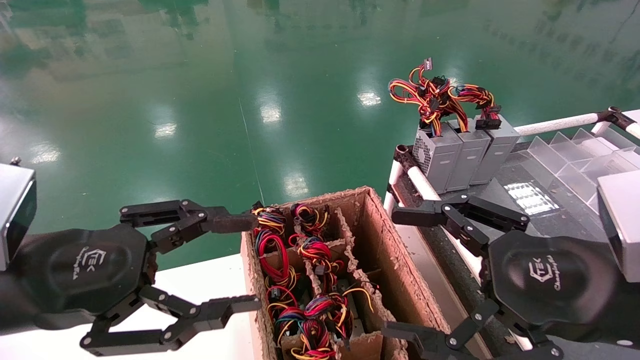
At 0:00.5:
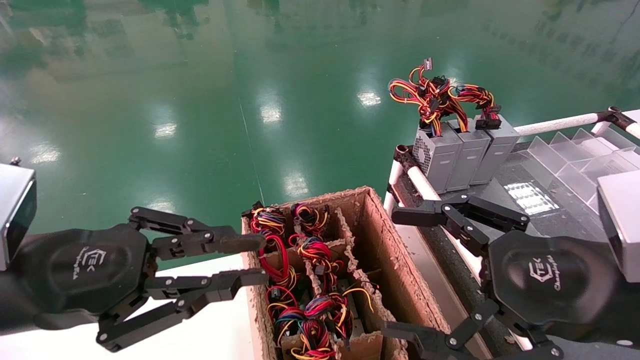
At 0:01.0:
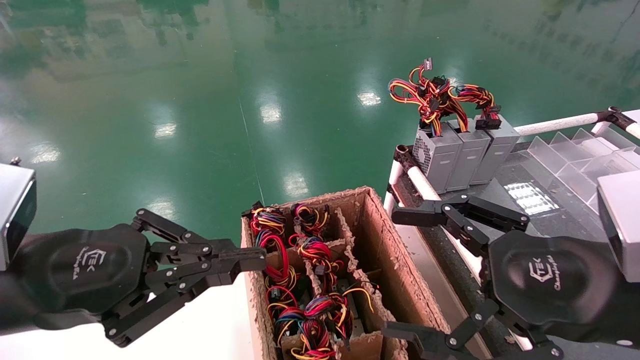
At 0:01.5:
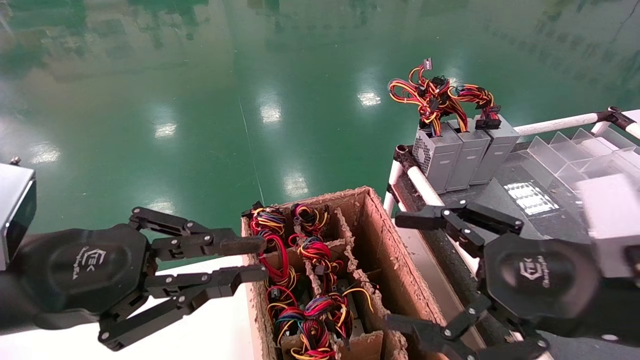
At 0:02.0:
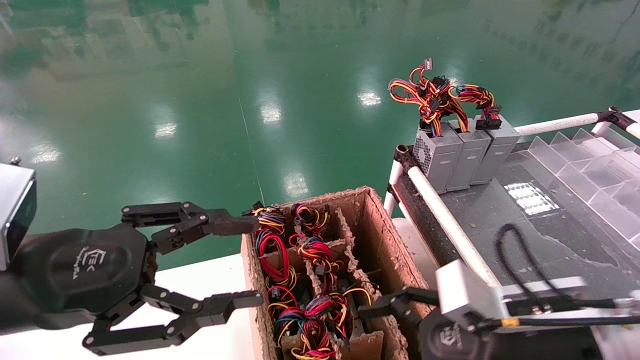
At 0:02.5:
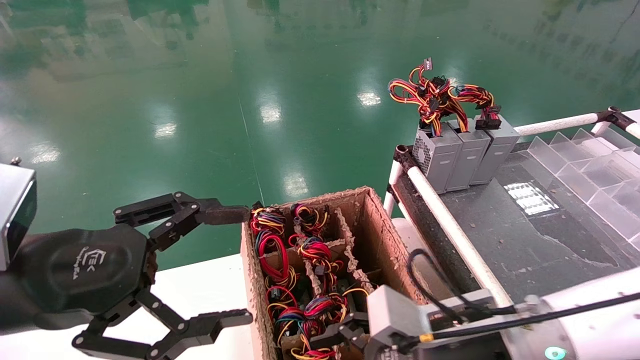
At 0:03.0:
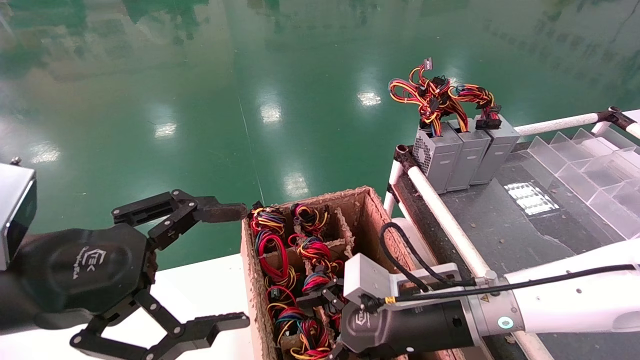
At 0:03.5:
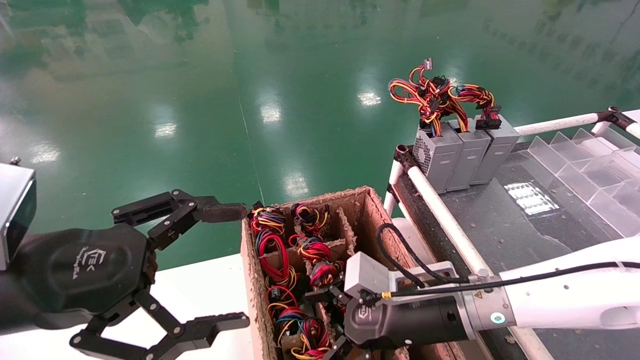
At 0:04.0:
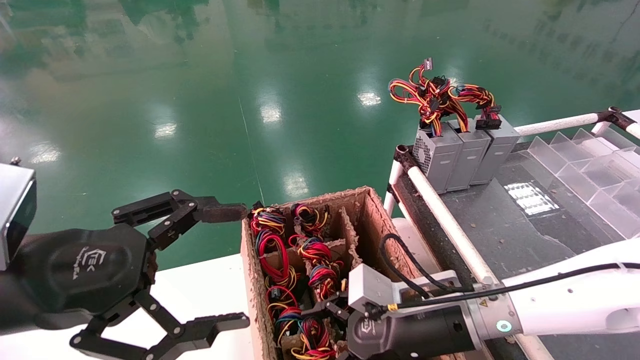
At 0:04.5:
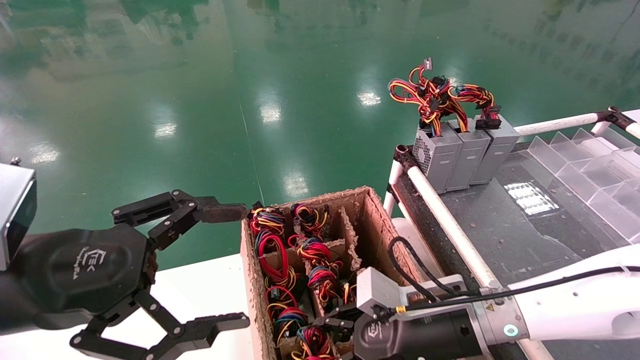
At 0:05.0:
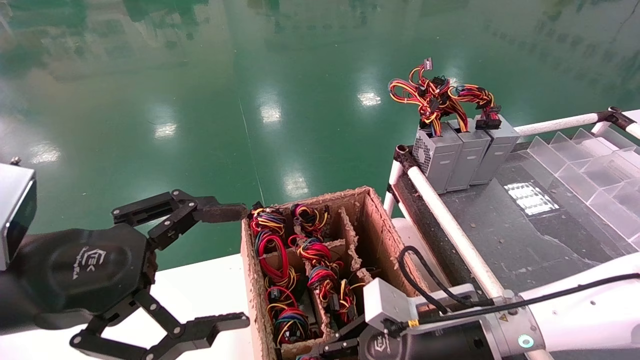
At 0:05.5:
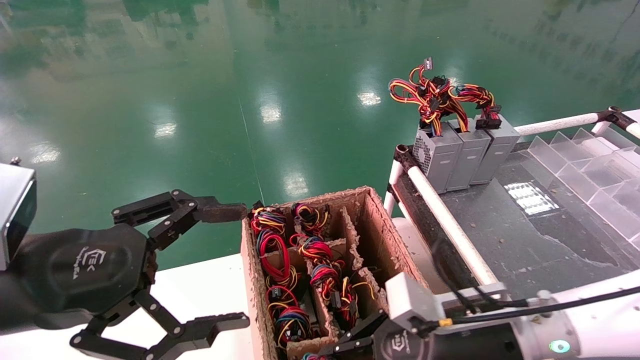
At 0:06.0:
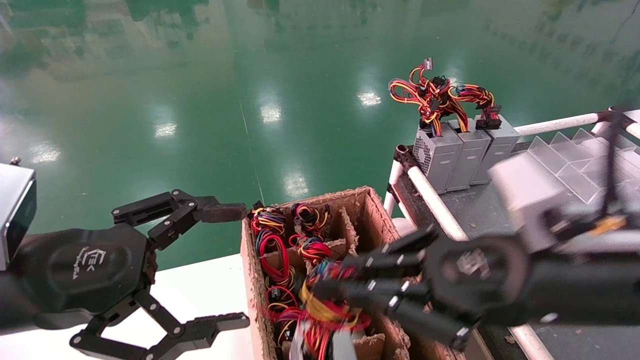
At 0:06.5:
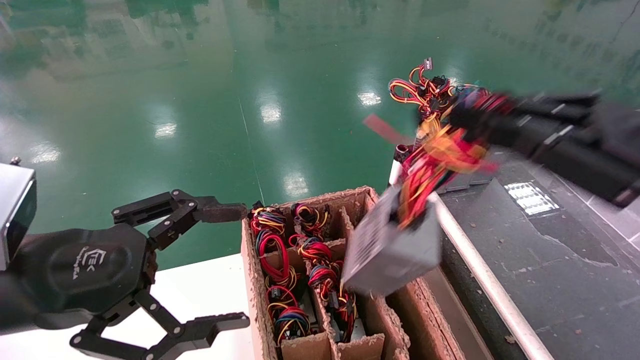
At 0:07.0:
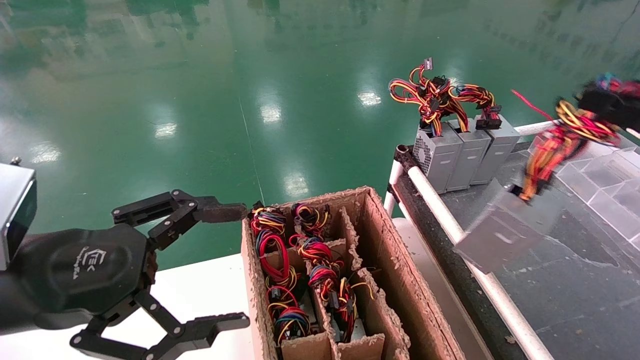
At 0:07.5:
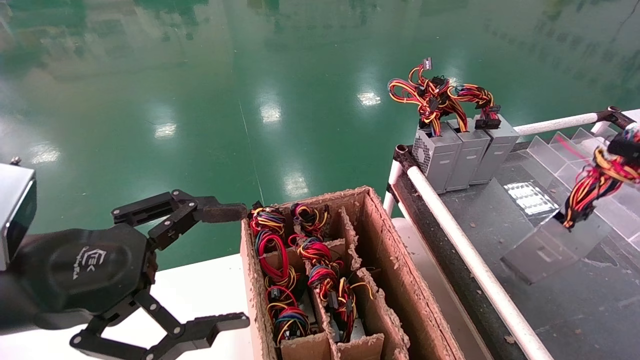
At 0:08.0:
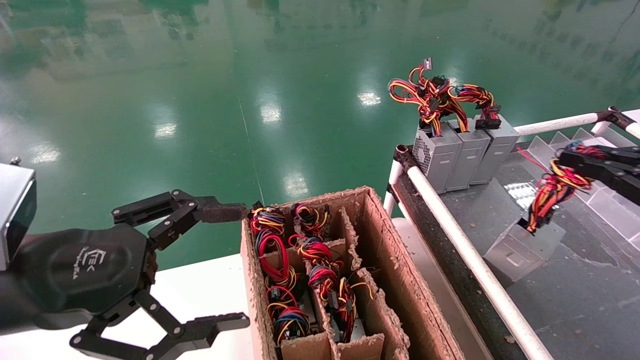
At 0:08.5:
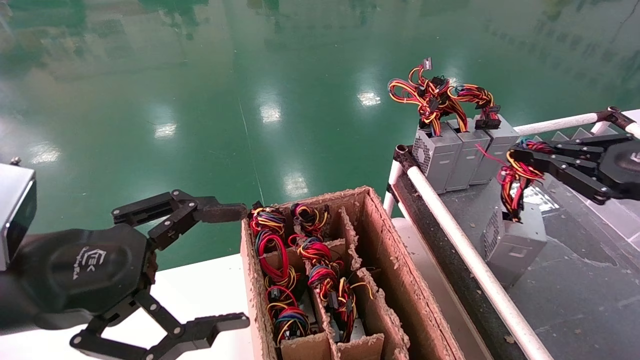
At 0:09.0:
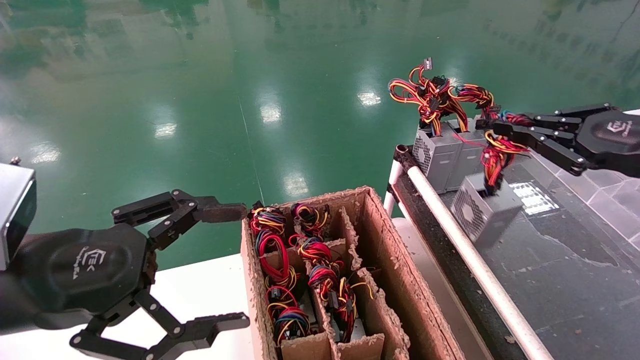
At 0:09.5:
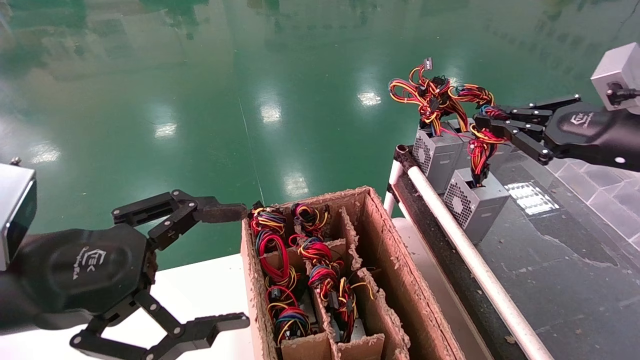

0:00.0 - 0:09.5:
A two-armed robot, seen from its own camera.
Step, 0:01.0 - 0:05.0: Grab and lift the power supply from the large box.
0:00.0 - 0:02.0: The left gripper closes, then opens again. The right gripper goes some 5 cm downward.
0:02.0 - 0:04.0: The right gripper shifts about 10 cm forward, to the left and downward; the left gripper opens its fingers.
0:04.0 - 0:05.5: The right gripper shifts by approximately 5 cm, and closes.
0:05.5 - 0:07.5: The right gripper goes roughly 30 cm to the right and upward.
0:07.5 - 0:09.5: The right gripper is displaced forward and to the left by approximately 15 cm.

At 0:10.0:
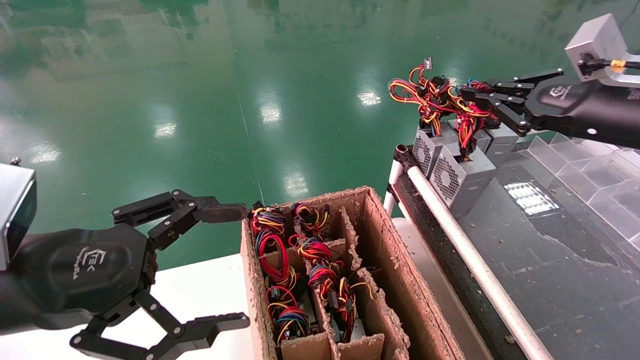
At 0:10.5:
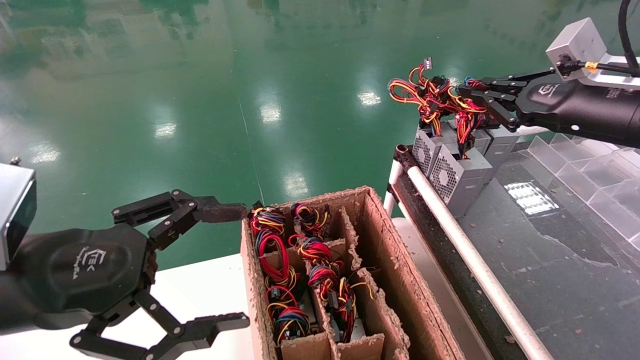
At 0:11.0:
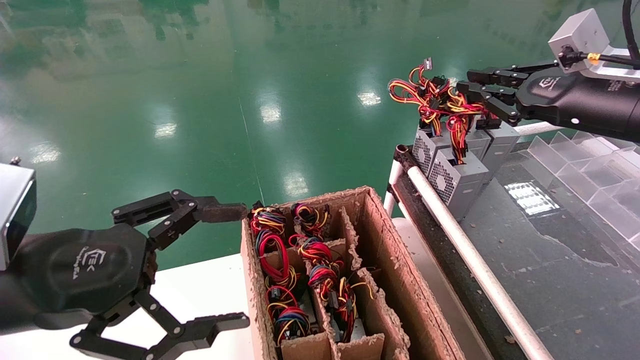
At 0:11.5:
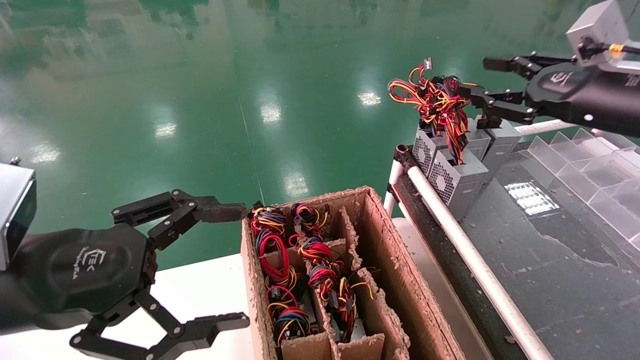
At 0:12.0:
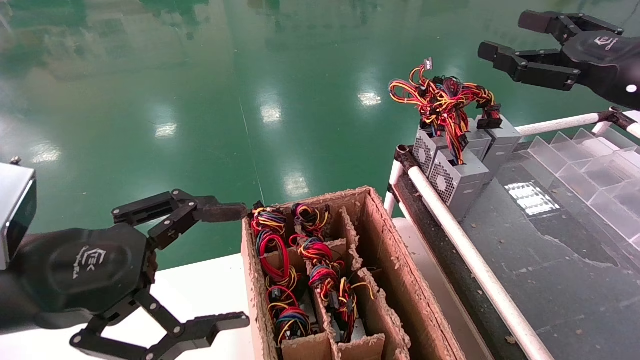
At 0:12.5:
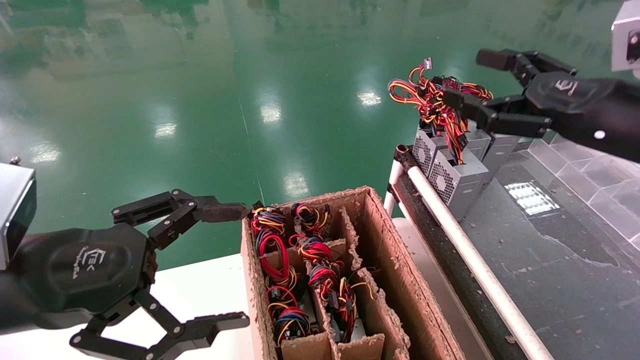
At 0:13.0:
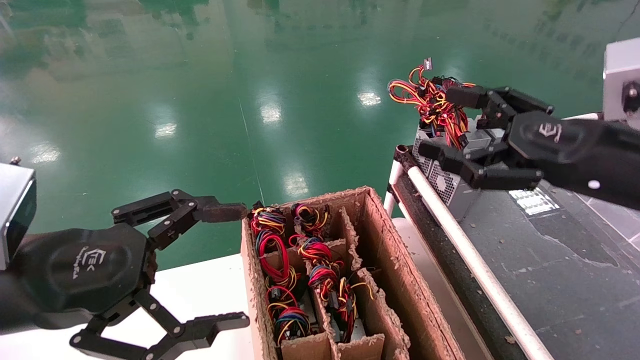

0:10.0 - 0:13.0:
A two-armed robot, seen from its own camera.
0:10.0 - 0:11.5: The right gripper opens.
0:11.5 - 0:13.0: The right gripper is displaced backward, to the left and downward by roughly 10 cm, and opens up.

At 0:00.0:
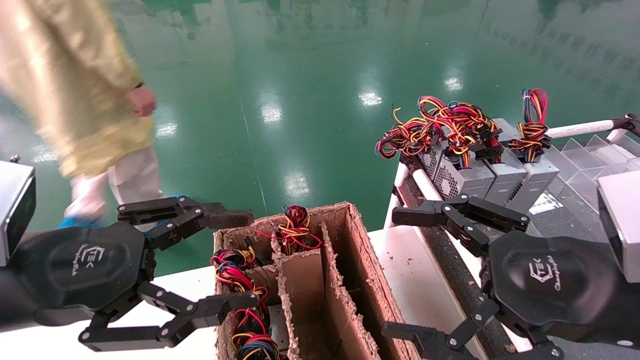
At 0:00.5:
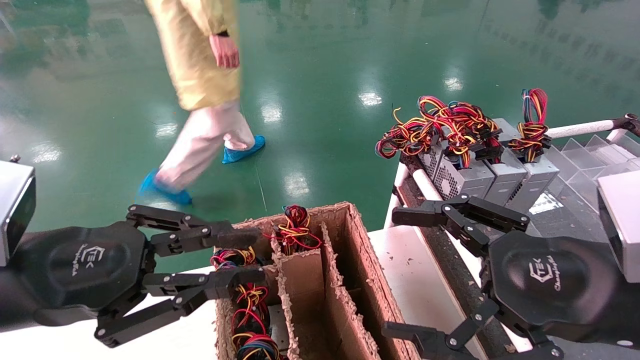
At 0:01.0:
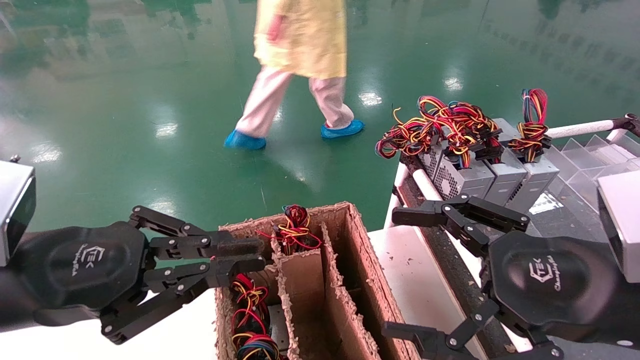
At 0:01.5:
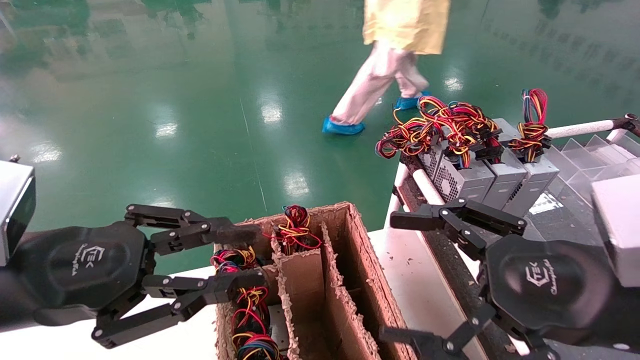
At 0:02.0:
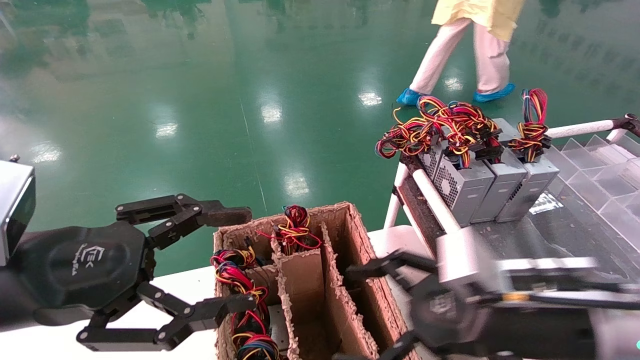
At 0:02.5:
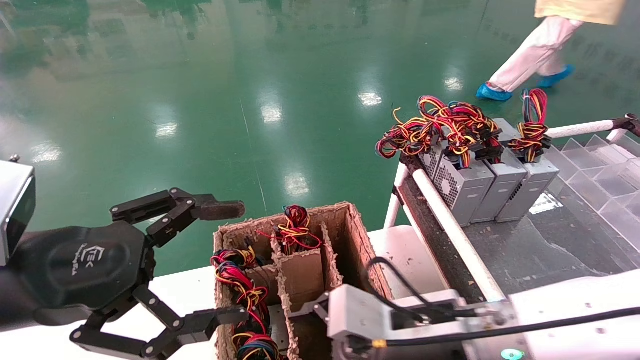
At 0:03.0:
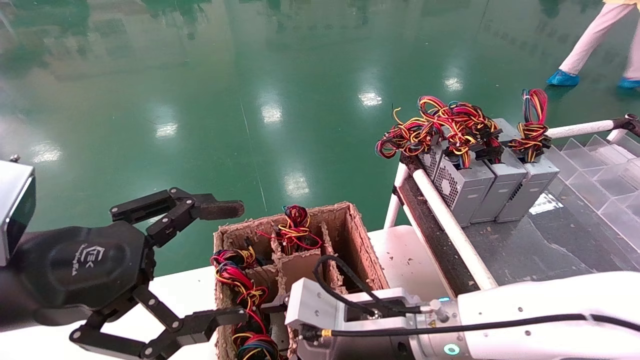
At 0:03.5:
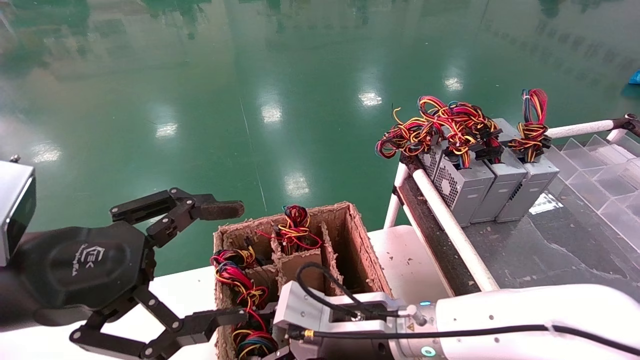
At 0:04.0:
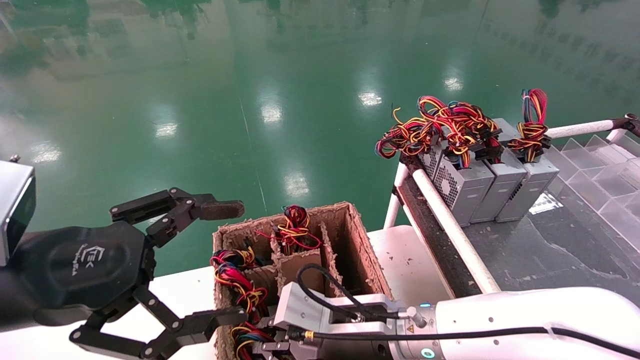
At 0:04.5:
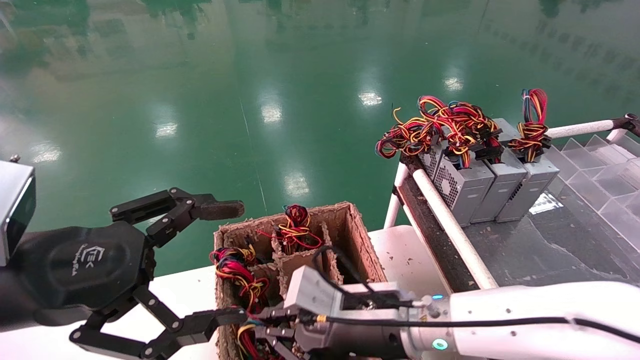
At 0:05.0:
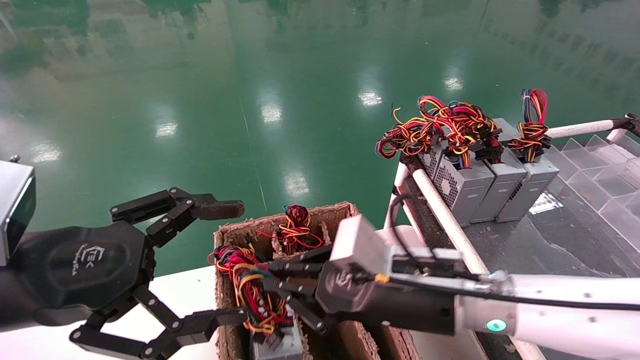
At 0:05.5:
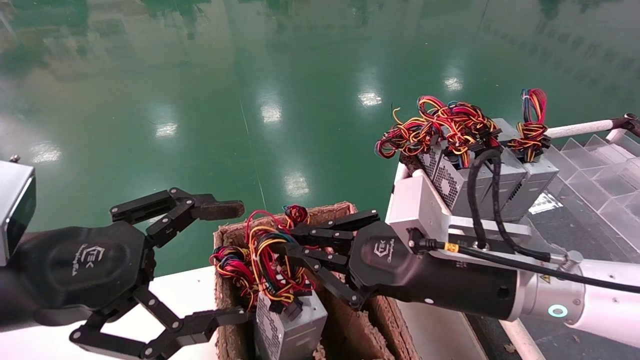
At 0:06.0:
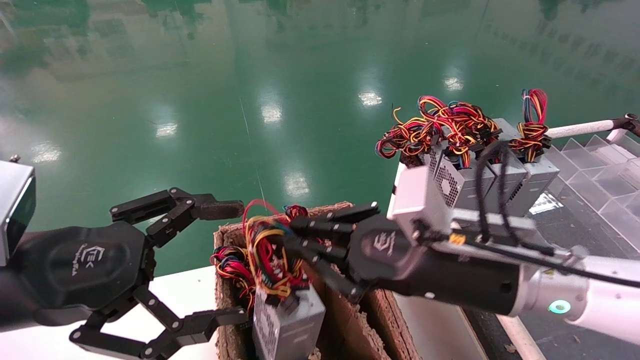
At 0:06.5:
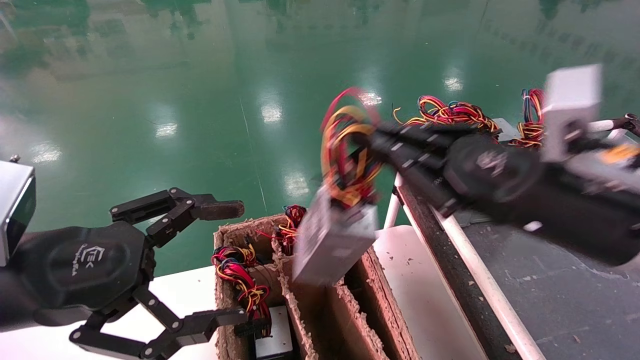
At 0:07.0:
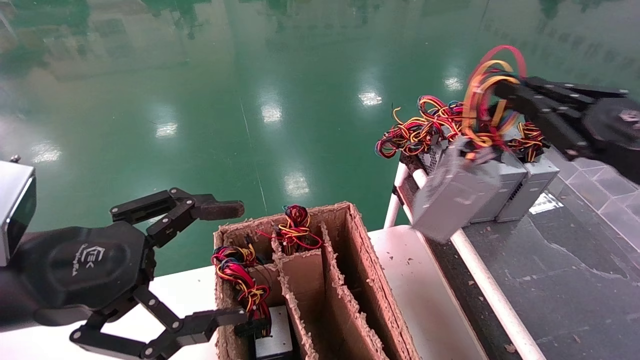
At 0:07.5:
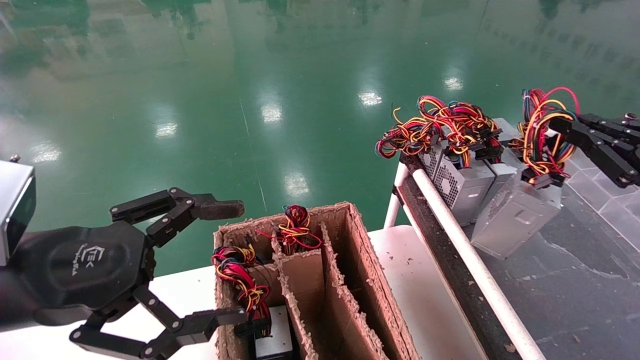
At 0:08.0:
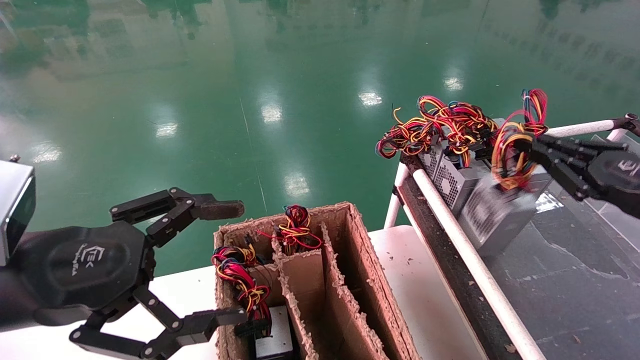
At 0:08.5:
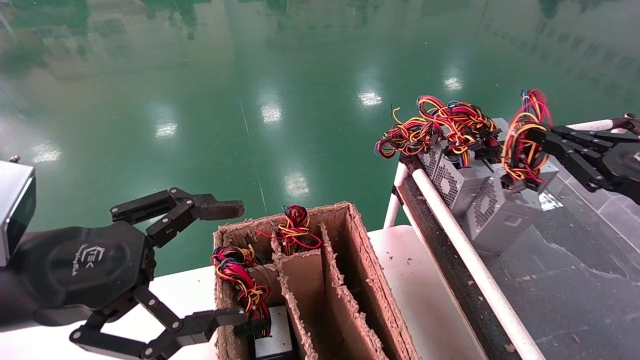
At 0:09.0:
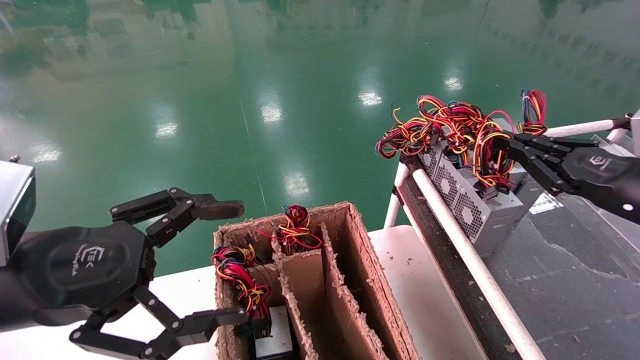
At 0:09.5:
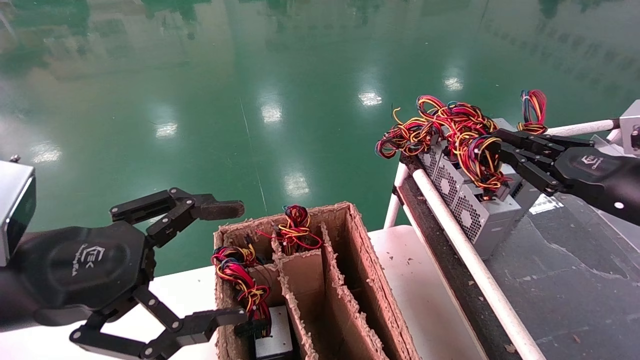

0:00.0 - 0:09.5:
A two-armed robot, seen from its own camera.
Step, 0:00.0 - 0:04.0: Grab and lift the power supply from the large box.
0:00.0 - 0:02.0: The right gripper goes approximately 10 cm downward and to the left, while the left gripper closes, then opens again.
0:02.0 - 0:04.0: The right gripper moves to the left, downward and forward, roughly 15 cm, and closes its fingers. Meanwhile the left gripper opens its fingers.
0:04.0 - 0:05.5: The right gripper moves upward and to the right, some 15 cm.
0:05.5 - 0:07.5: The right gripper shifts roughly 30 cm to the right.
0:07.5 - 0:09.5: The right gripper shifts by approximately 5 cm.
